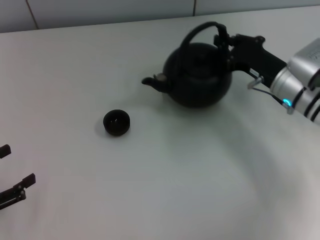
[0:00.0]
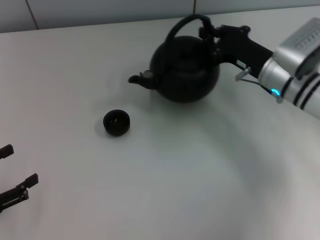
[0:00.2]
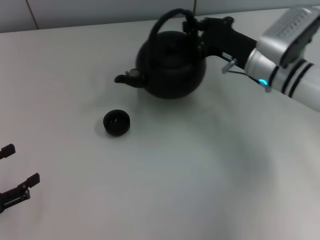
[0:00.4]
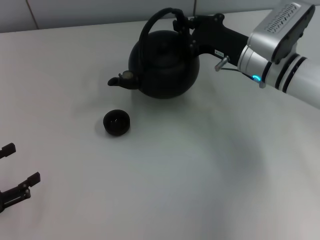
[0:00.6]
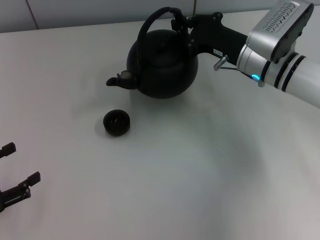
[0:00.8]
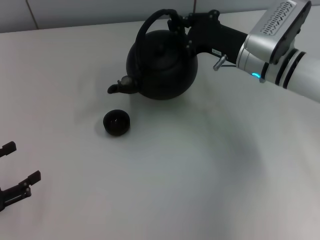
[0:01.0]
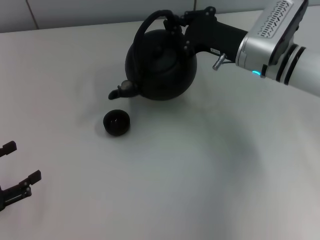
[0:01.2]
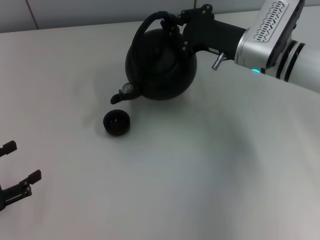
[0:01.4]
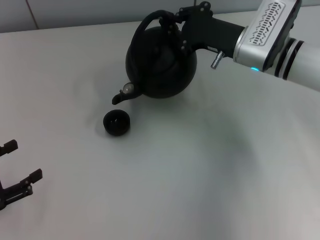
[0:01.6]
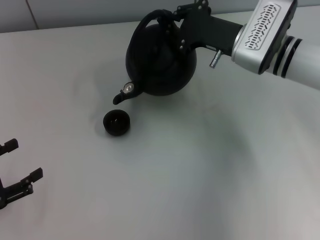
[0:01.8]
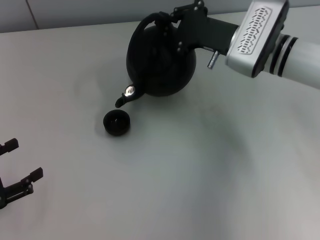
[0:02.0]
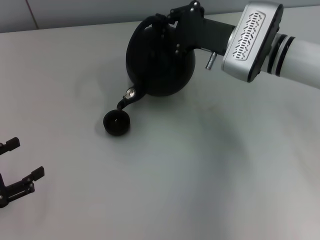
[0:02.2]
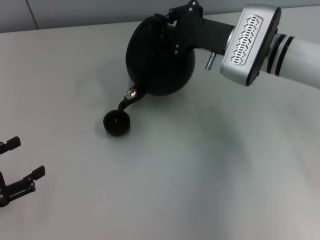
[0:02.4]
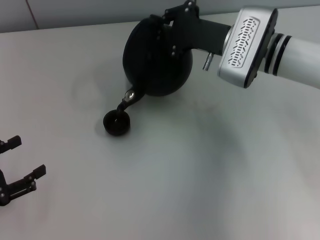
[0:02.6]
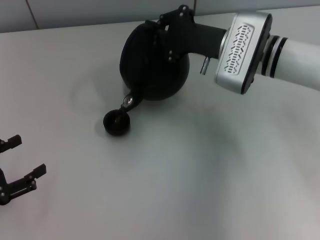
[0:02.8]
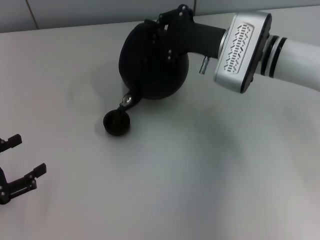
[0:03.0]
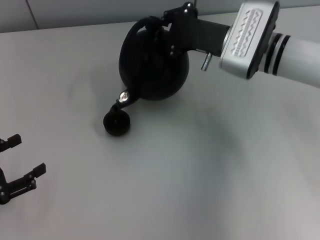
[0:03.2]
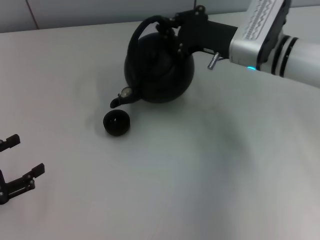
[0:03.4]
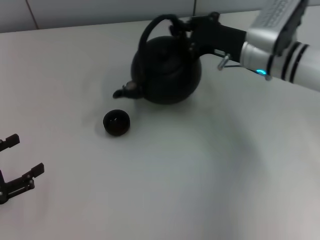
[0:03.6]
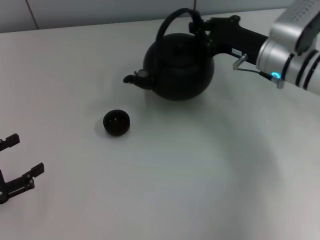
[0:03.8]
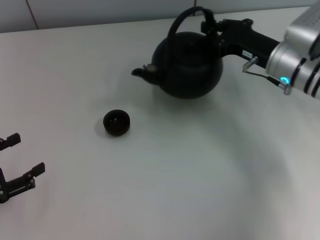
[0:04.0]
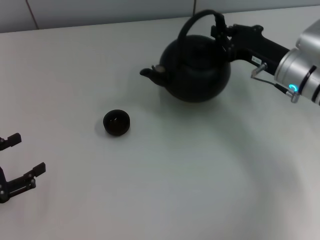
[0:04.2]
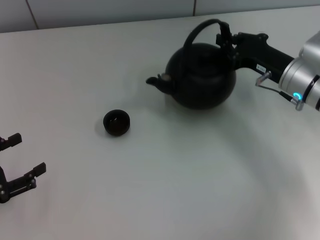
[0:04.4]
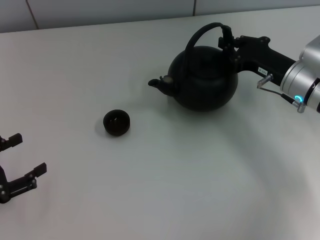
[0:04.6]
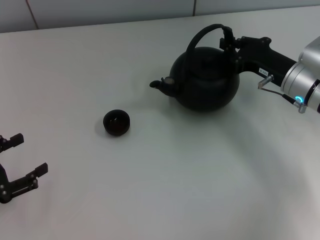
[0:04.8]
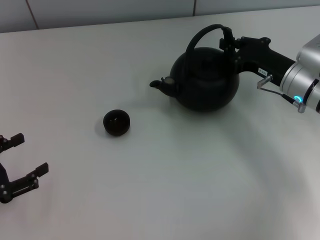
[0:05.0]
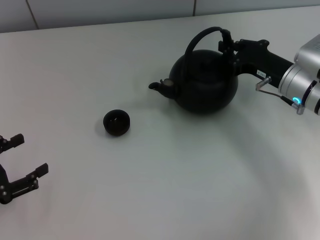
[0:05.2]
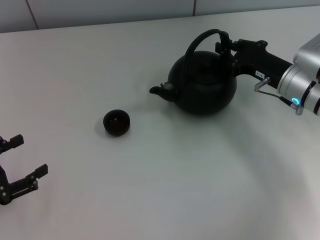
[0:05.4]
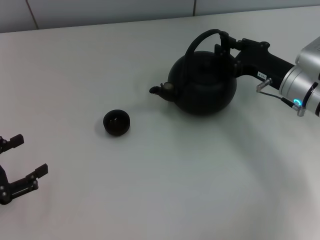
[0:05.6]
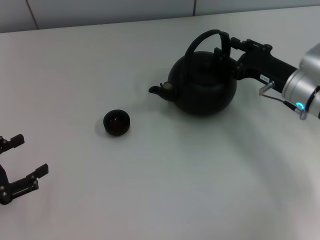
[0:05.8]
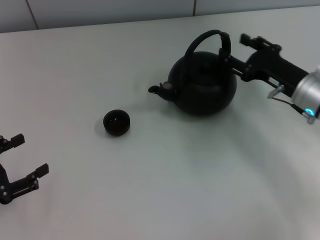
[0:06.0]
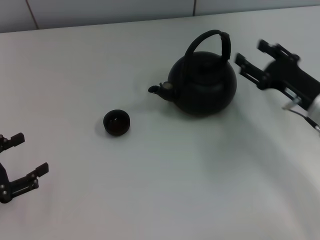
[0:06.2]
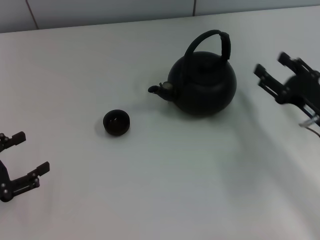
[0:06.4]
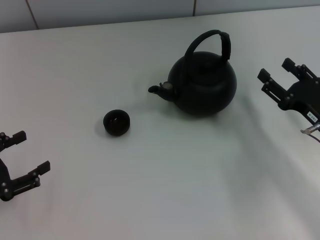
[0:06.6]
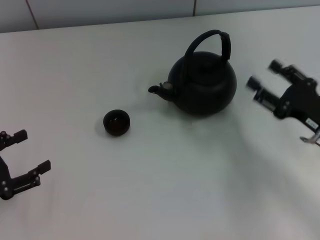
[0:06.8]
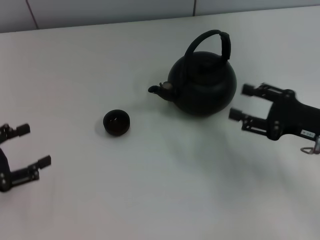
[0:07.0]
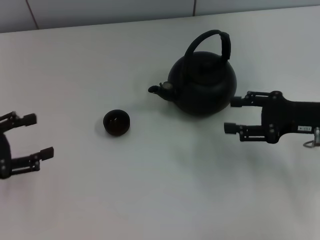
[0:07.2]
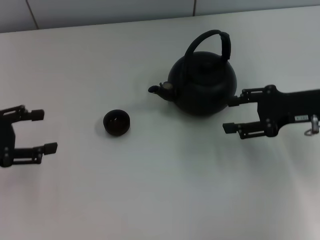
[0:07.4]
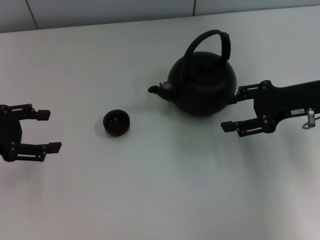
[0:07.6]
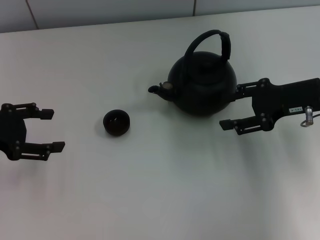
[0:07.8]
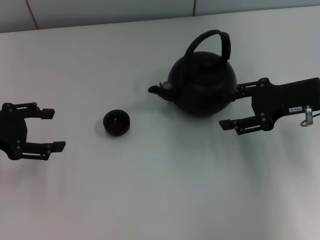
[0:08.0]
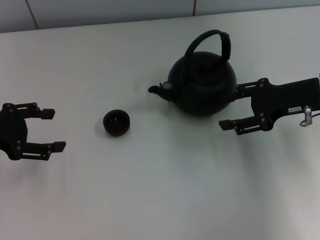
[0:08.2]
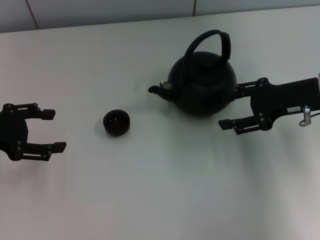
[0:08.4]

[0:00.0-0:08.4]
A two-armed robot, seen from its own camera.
Task of the whole recording: Grasp the handle of the teapot with one hand and pour tea into the teacup.
Step, 0:03.8 to 0:06.2: Put down the teapot with the right gripper.
0:00.0 to 0:01.4: The right gripper changes place by approximately 10 cm.
0:02.8 to 0:04.2: The right gripper moves to the right, about 10 cm.
0:04.2 to 0:05.6: There are only small adjustments of the grippers.
0:05.6 to 0:07.0: The right gripper travels backward by approximately 10 cm, and opens.
0:07.0 to 0:08.4: The two grippers go approximately 10 cm forward and upward.

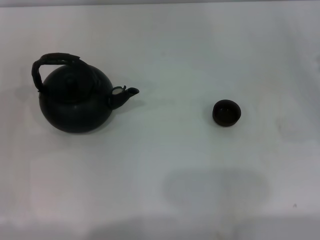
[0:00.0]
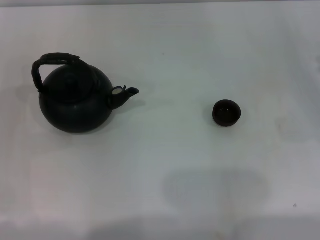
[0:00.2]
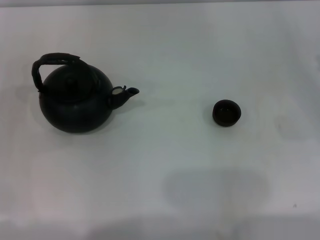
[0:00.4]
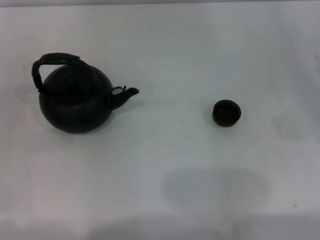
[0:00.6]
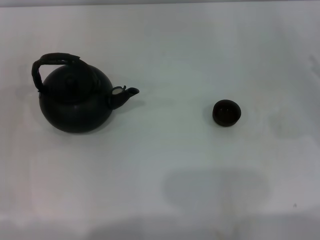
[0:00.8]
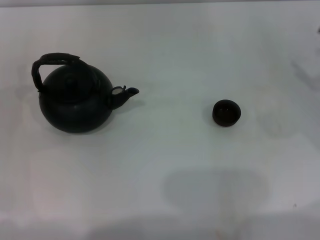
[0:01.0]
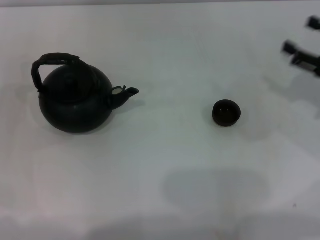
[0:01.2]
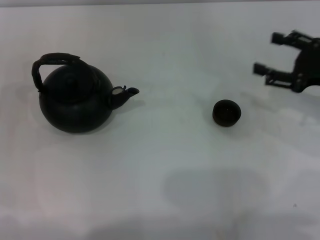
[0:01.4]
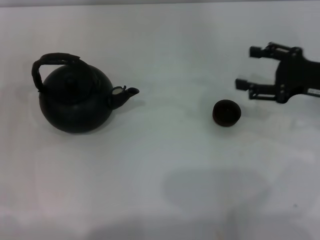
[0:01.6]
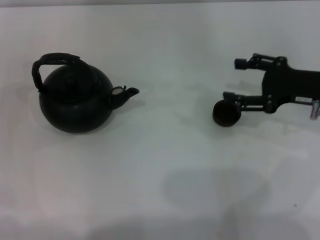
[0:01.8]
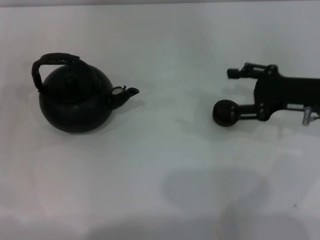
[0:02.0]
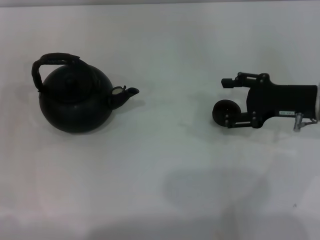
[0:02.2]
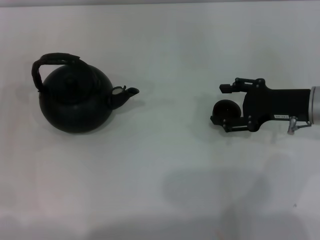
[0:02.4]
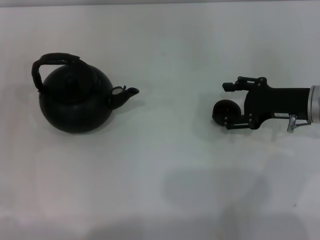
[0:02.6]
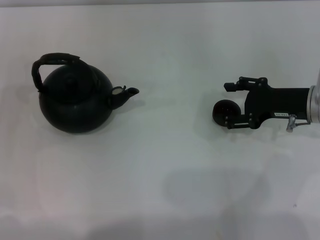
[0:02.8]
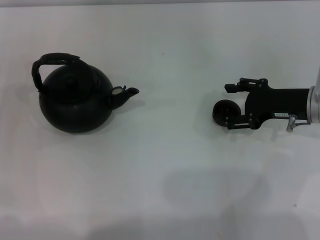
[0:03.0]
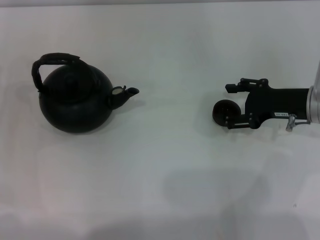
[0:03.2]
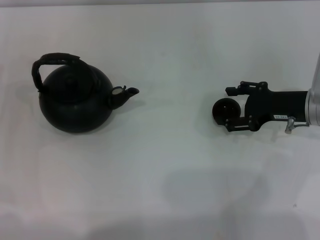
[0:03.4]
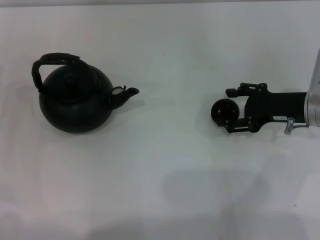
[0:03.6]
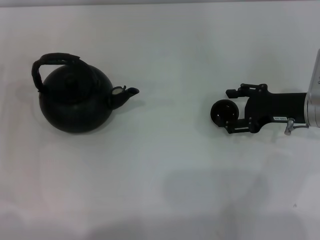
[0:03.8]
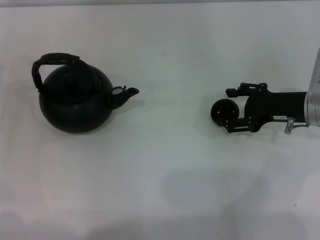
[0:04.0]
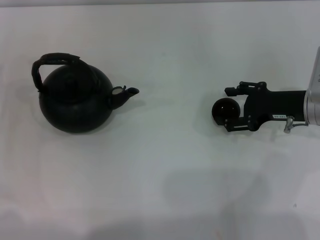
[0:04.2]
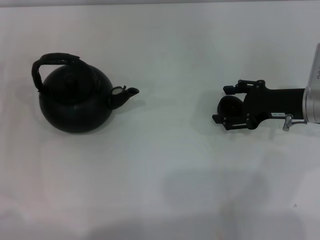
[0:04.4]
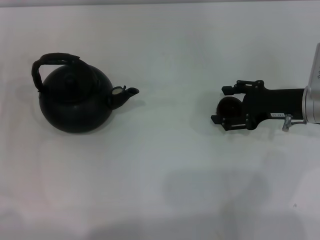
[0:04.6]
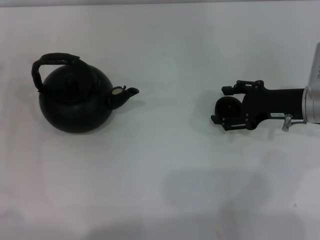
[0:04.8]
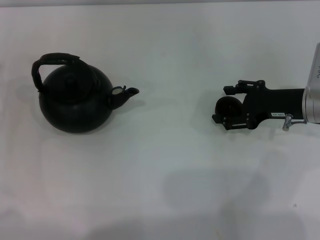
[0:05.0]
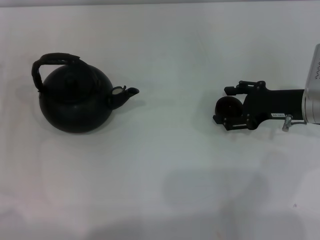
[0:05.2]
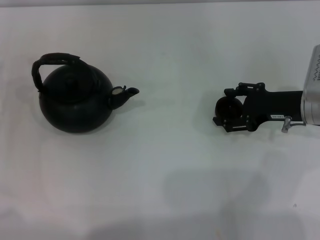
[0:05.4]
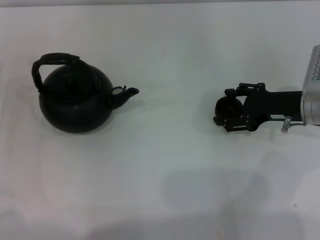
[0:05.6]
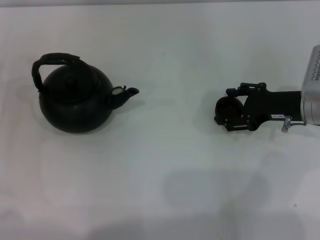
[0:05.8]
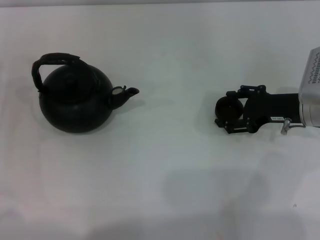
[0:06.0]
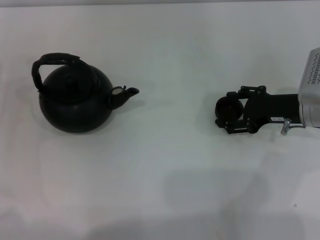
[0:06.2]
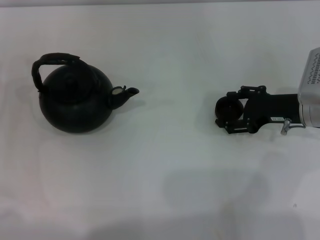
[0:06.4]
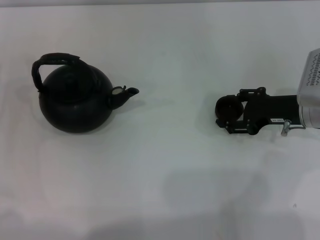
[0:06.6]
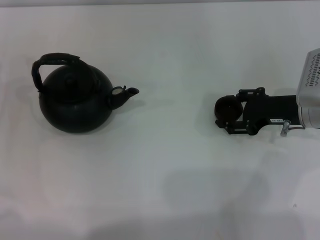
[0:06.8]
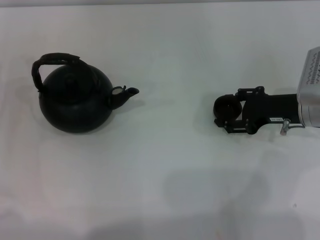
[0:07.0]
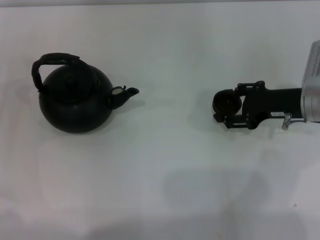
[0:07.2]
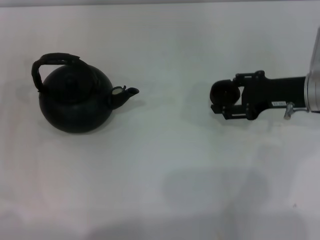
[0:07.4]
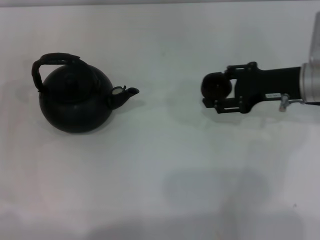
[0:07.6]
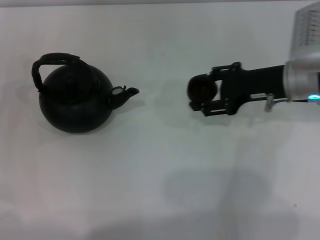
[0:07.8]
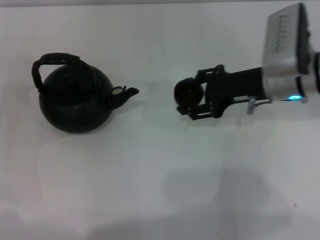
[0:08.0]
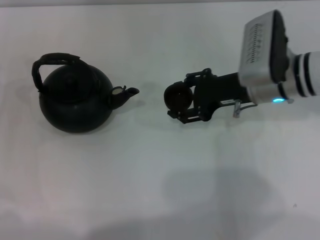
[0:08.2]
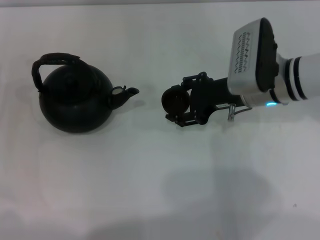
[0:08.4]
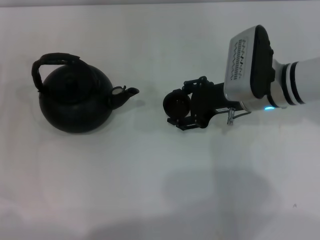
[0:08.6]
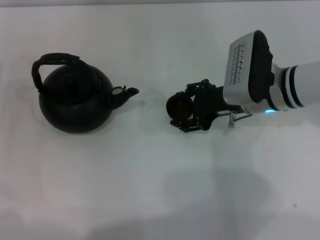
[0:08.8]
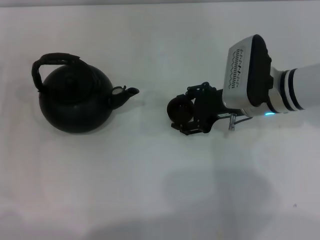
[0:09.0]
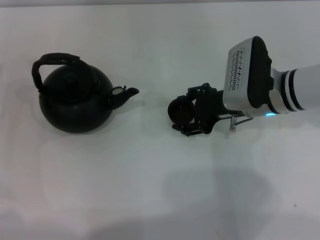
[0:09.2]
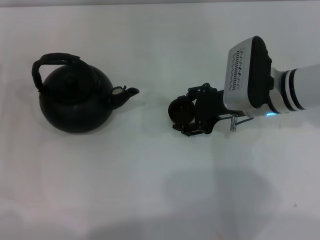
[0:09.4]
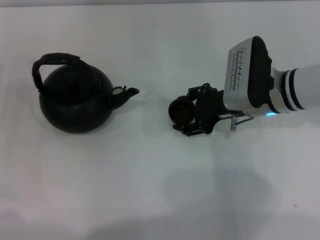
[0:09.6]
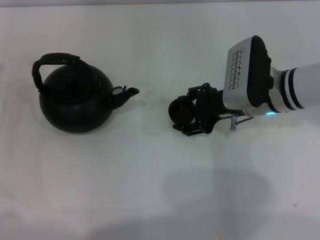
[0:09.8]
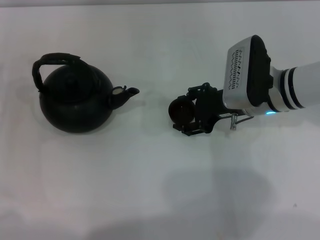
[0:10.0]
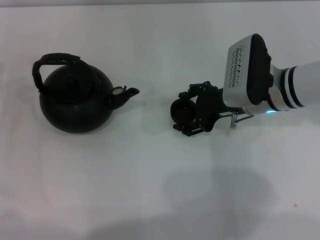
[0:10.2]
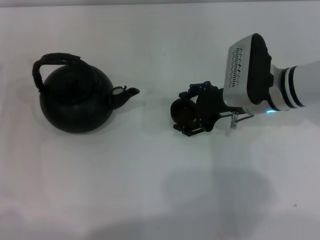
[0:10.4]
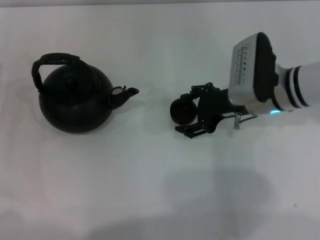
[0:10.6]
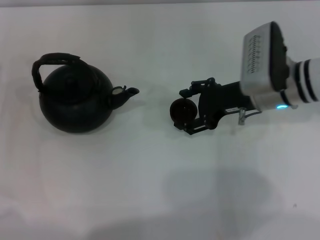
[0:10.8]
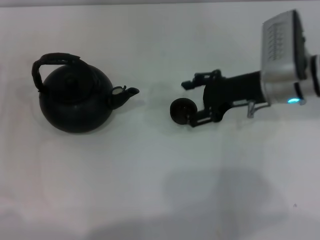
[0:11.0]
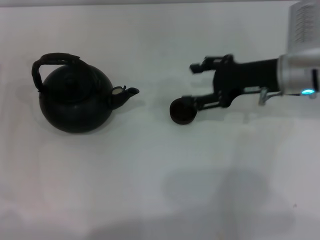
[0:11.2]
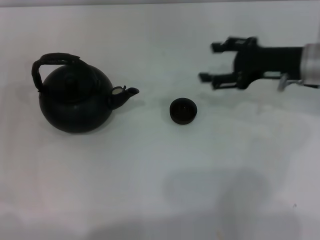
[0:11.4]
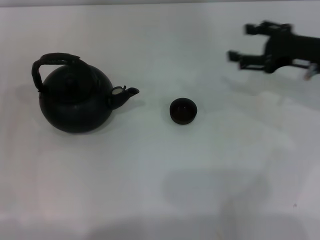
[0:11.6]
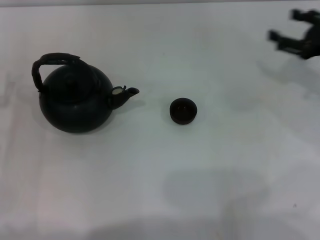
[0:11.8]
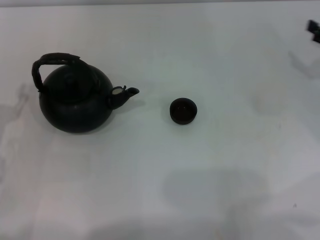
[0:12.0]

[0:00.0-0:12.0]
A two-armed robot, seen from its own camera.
Task of the whole recording: Grasp the handle of the teapot with one hand and pour tea into the teacup.
Step, 0:00.0 to 0:07.4: Pick up the teacup with the right gripper.
Step, 0:07.6 to 0:11.0: Place the teacup in the center of view with the right gripper.
0:00.0 to 0:01.6: The right gripper heads to the left, covering some 10 cm.
0:01.6 to 0:03.0: The right gripper ends up approximately 5 cm from where it was.
0:03.0 to 0:04.4: Both grippers stay about where they are.
0:04.4 to 0:06.0: Both grippers stay about where they are.
0:06.0 to 0:07.6: The right gripper shifts about 5 cm upward, and closes up.
0:07.6 to 0:09.0: The right gripper travels to the left by approximately 10 cm.
0:09.0 to 0:10.4: The right gripper opens its fingers.
0:10.4 to 0:12.0: The right gripper is displaced to the right by about 20 cm, while the left gripper shifts approximately 5 cm backward.

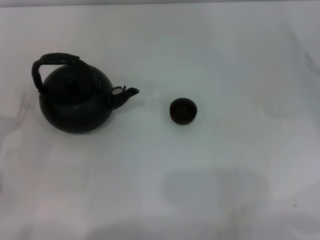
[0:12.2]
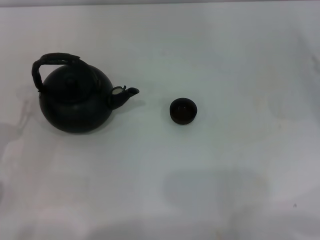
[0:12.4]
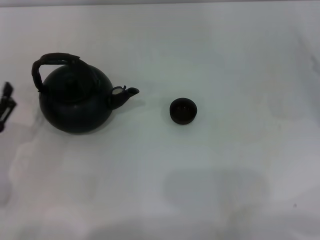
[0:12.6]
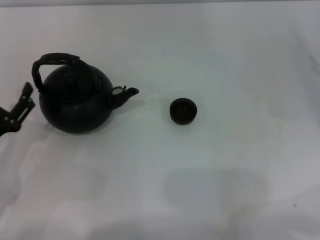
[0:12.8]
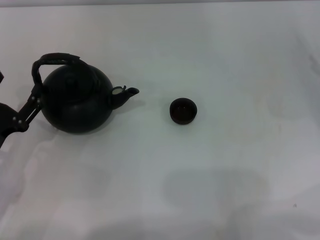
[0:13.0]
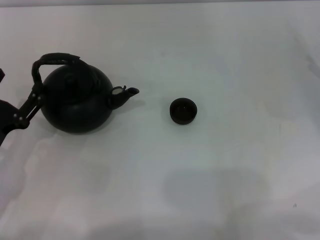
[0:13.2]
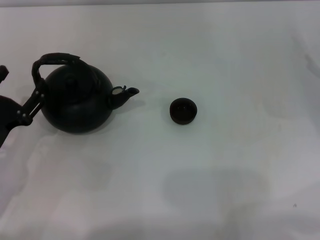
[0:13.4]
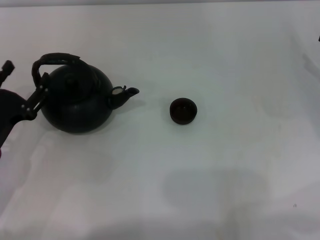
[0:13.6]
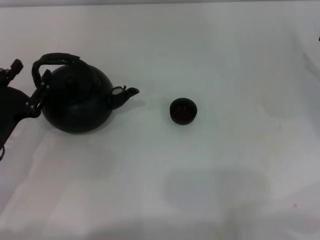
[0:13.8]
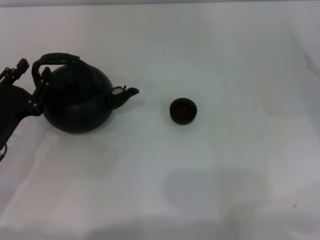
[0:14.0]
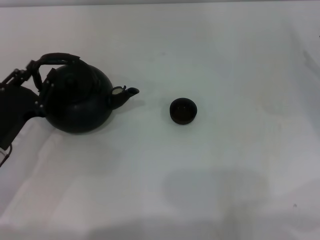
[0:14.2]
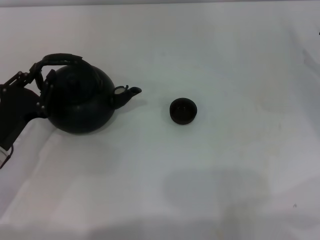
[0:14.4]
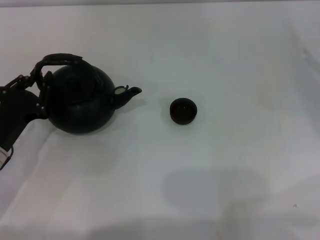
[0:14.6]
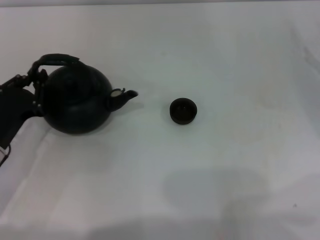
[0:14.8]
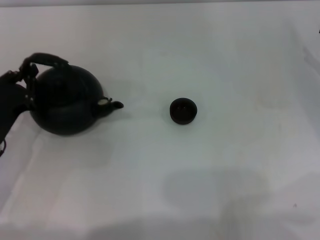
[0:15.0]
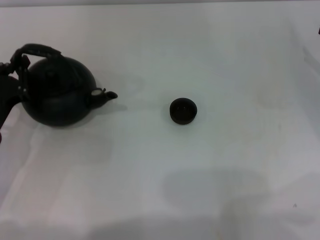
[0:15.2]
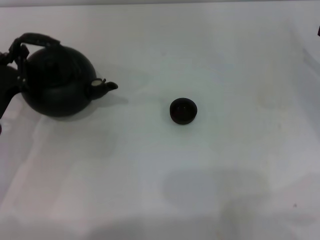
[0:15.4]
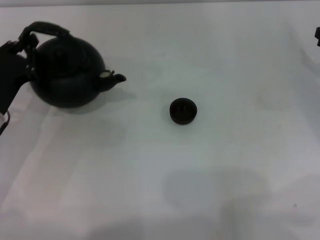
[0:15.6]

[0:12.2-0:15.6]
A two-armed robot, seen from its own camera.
Task of the whole recording: Grasp the handle of the teapot with one hand and pour tea into the teacup.
0:12.2 to 0:13.8: The grippers stay close to where they were, moving slightly.
0:13.8 to 0:15.6: The left gripper changes place by some 5 cm, and closes.
